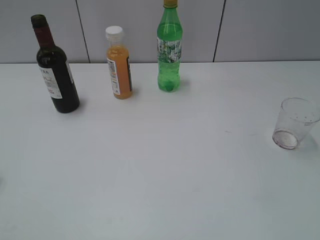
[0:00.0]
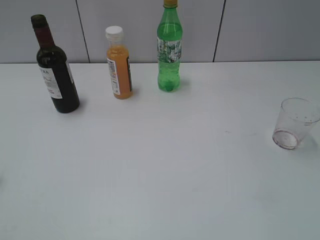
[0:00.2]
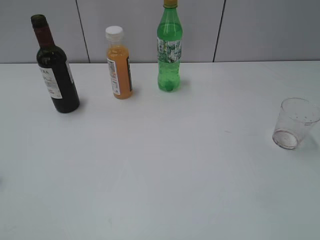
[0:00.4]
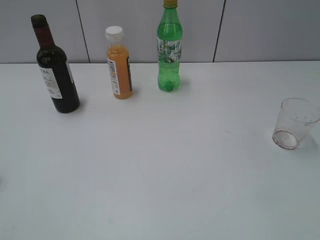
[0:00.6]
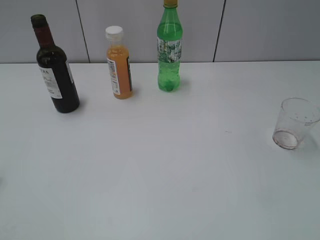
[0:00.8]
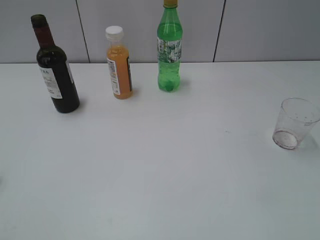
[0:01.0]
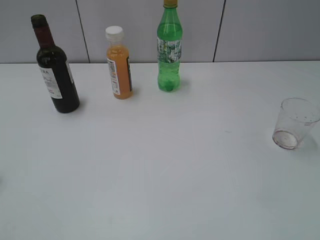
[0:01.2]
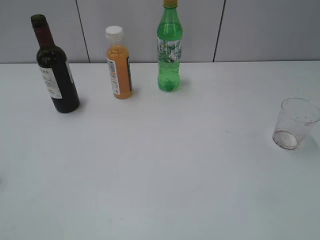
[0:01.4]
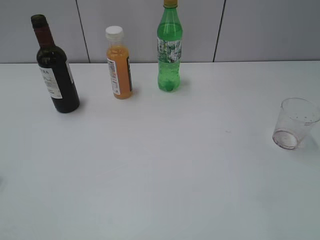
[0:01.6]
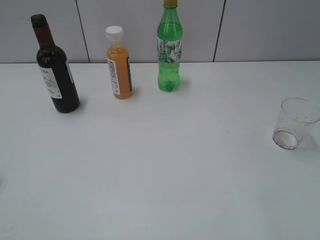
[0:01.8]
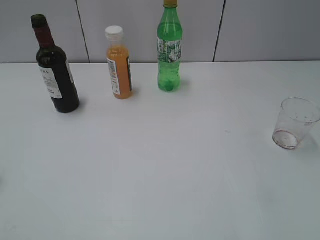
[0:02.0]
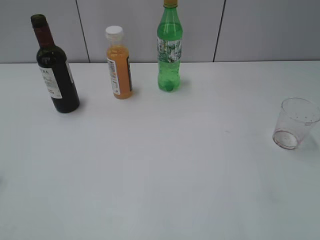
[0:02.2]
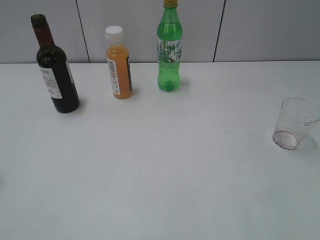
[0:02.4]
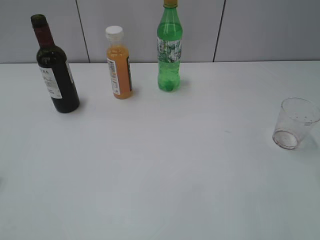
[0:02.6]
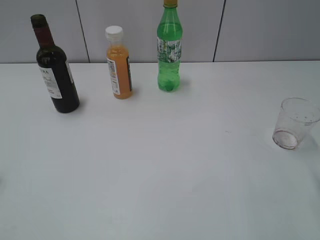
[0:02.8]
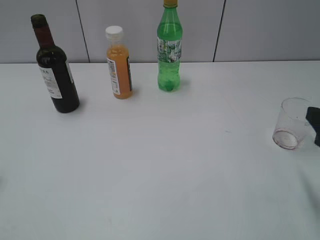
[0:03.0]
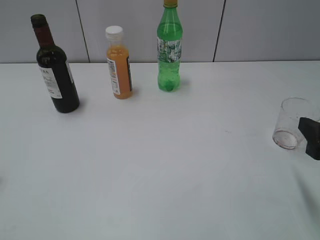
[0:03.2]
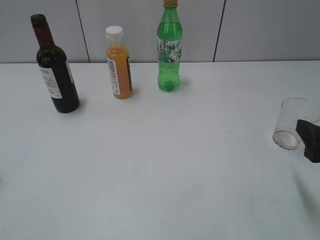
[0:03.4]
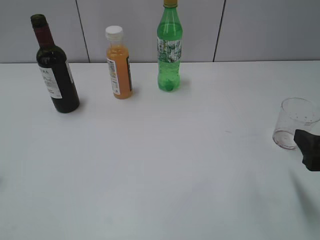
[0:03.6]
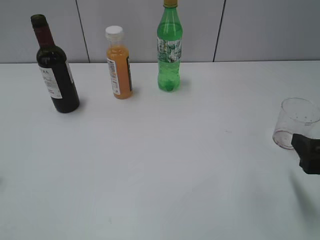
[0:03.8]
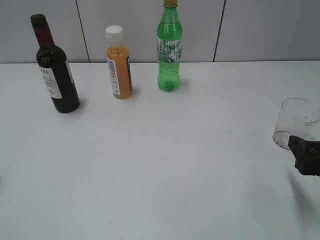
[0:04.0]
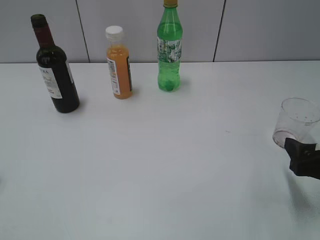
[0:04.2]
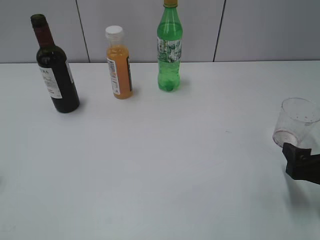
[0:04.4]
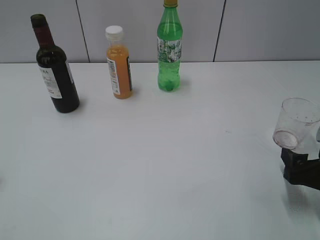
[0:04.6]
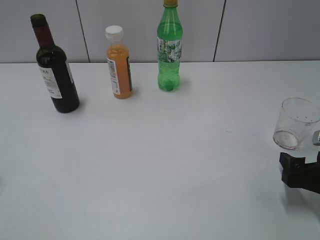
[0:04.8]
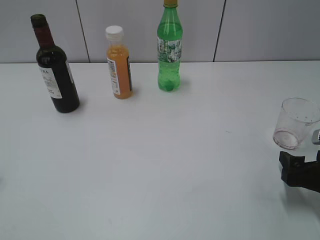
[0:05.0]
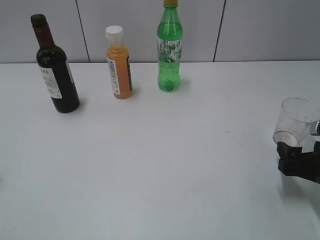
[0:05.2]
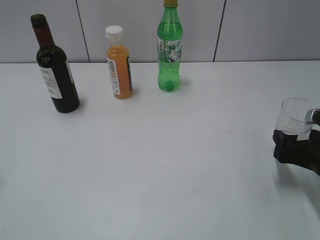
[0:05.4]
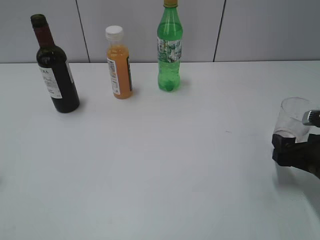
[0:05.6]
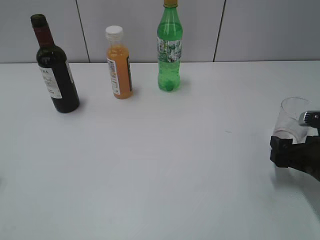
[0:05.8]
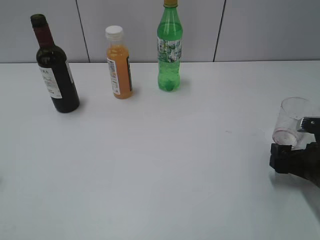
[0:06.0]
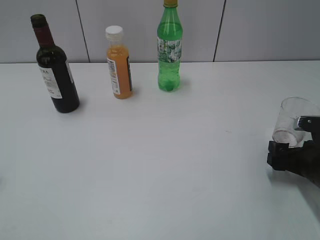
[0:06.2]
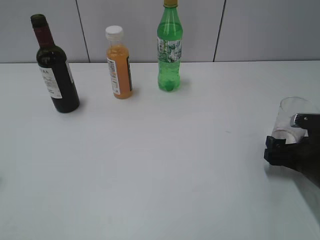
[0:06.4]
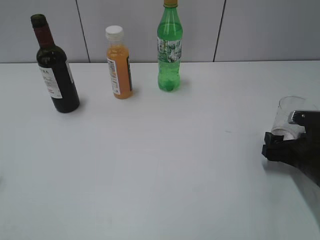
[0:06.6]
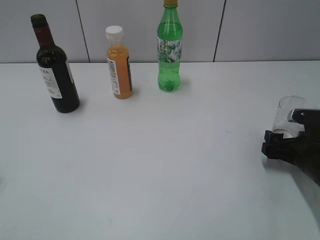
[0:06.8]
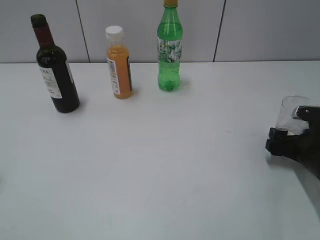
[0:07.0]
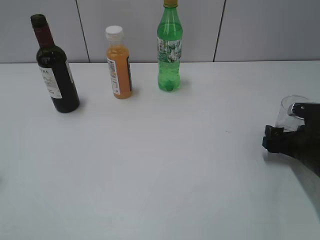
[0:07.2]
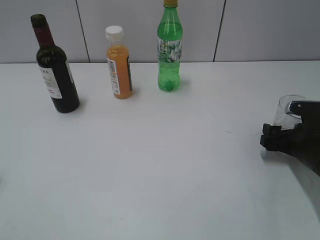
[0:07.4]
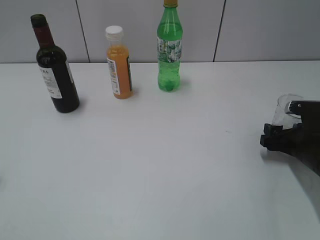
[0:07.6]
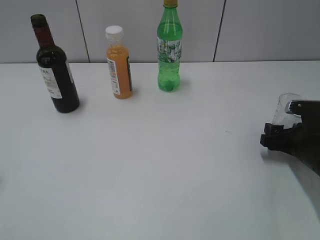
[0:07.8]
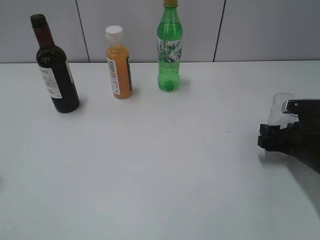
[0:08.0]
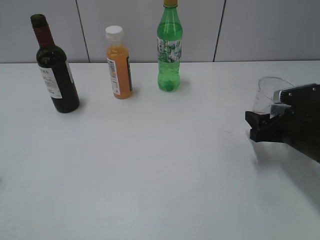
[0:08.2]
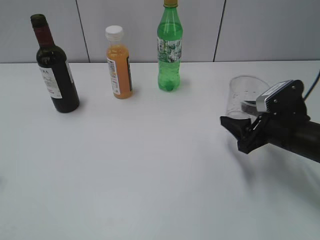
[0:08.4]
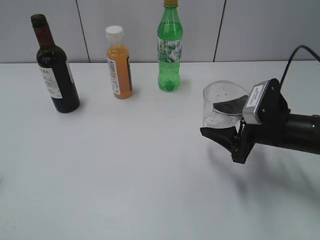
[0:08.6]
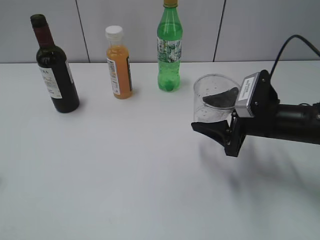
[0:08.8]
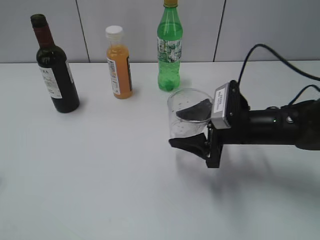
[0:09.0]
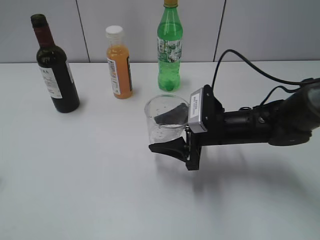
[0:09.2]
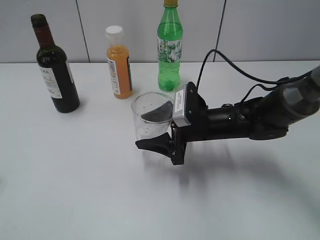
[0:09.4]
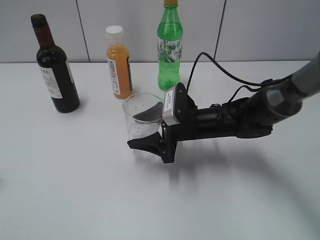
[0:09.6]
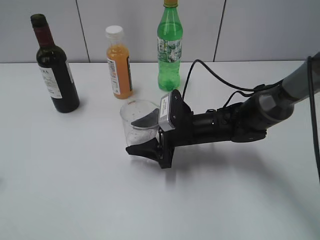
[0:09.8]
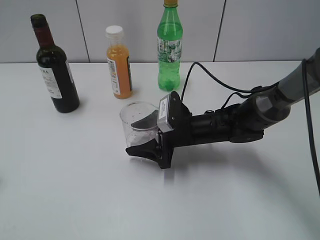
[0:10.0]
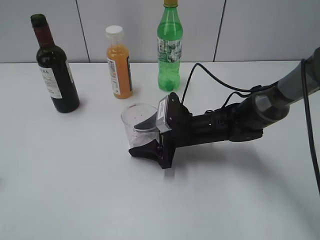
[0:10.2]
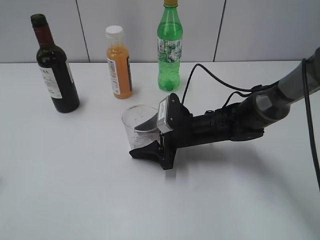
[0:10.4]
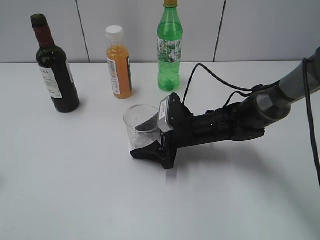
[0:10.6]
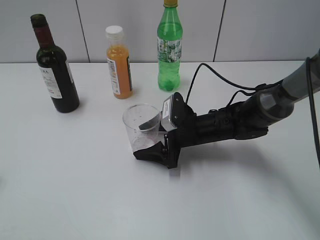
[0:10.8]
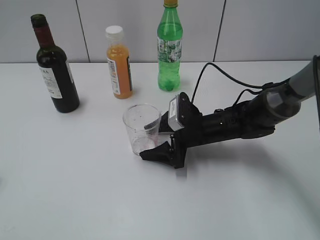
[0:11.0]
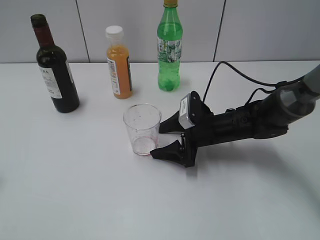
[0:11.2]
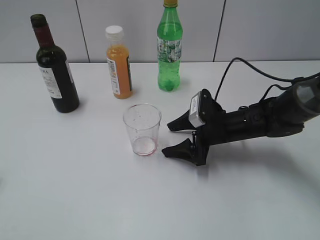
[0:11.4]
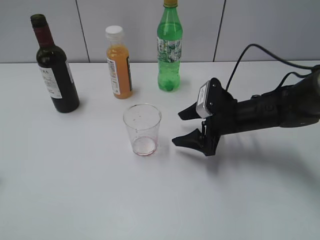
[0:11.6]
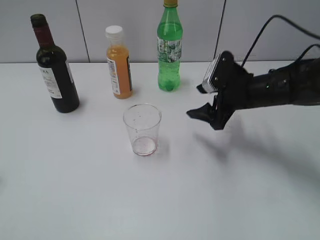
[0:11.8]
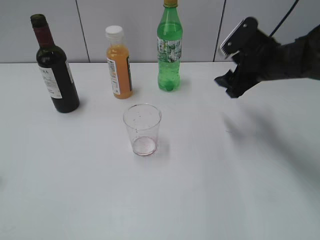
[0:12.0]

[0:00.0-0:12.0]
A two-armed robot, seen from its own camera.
Step, 0:01.2 to 0:07.6: Grasp the transparent cup with right gripper.
Step, 0:08.0 to 0:11.2: Place the transparent cup on the table with right gripper.
0:01.6 to 0:03.0: The right gripper travels forward and downward by some 15 cm.
0:03.0 to 0:04.4: The right gripper goes about 10 cm downward, and opens up.
0:04.4 to 0:06.0: The right gripper moves approximately 5 cm.
0:06.0 to 0:07.6: The right gripper is displaced forward by some 5 cm, and closes up.
0:07.6 to 0:09.0: The right gripper travels to the left by approximately 15 cm.
0:09.0 to 0:10.4: The right gripper shifts about 10 cm to the left and downward.
0:10.4 to 0:12.0: The right gripper heads upward and to the right, covering some 20 cm, and opens.

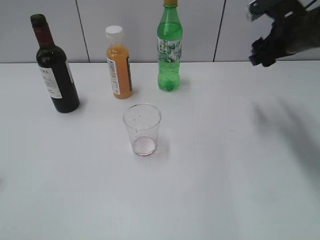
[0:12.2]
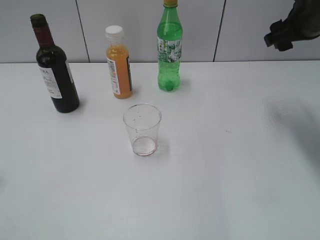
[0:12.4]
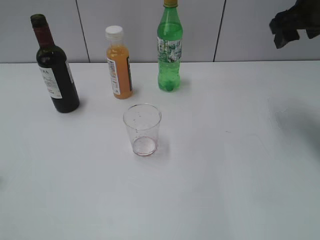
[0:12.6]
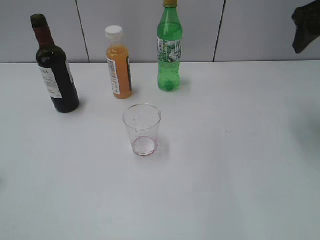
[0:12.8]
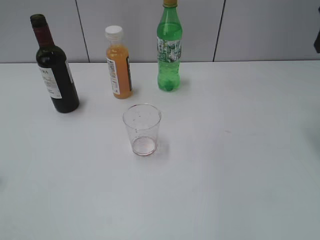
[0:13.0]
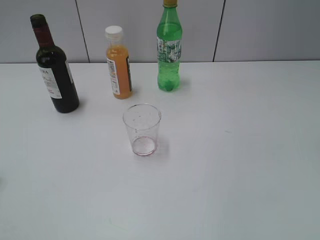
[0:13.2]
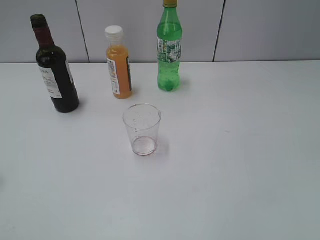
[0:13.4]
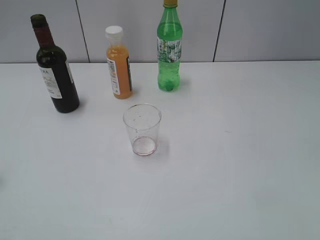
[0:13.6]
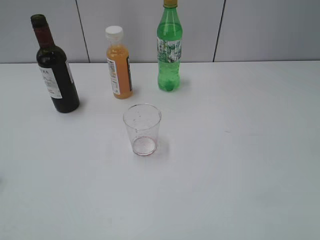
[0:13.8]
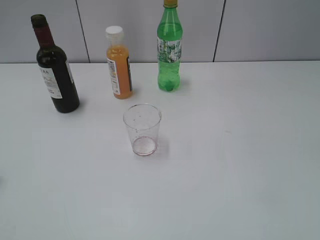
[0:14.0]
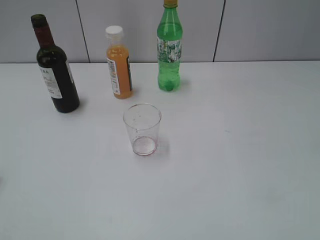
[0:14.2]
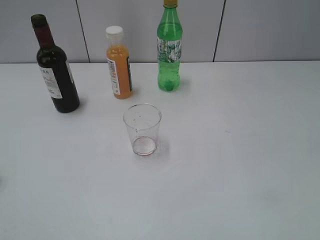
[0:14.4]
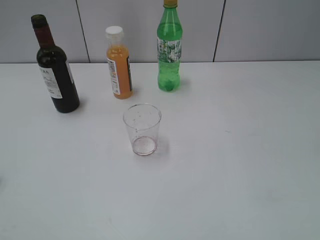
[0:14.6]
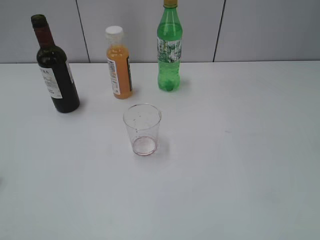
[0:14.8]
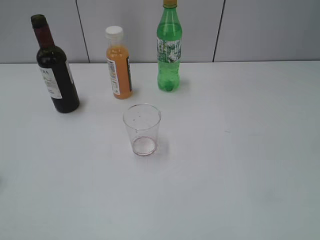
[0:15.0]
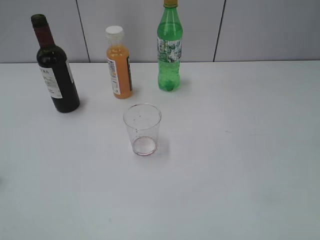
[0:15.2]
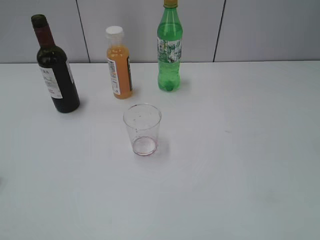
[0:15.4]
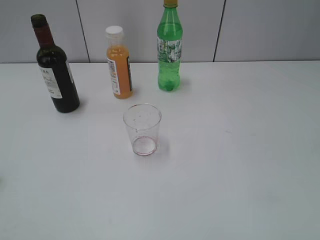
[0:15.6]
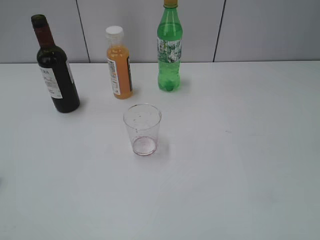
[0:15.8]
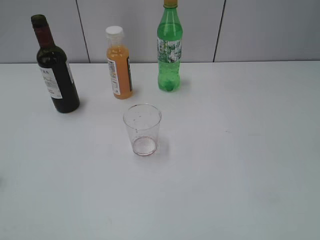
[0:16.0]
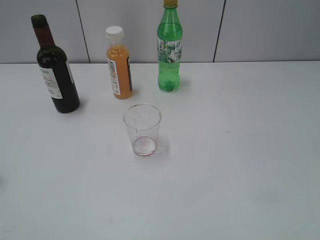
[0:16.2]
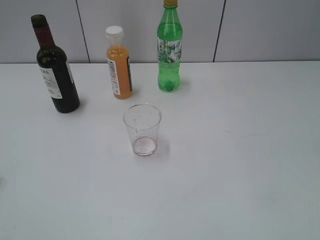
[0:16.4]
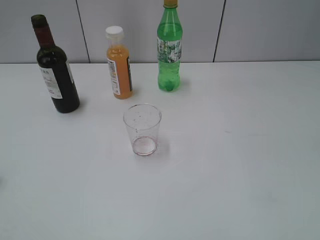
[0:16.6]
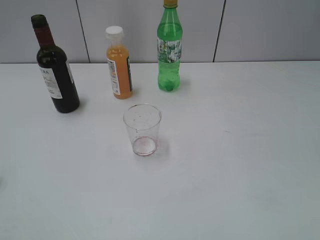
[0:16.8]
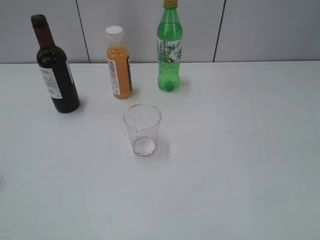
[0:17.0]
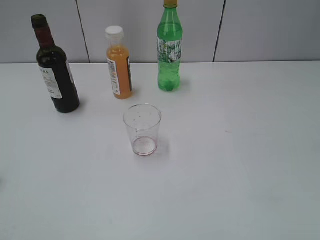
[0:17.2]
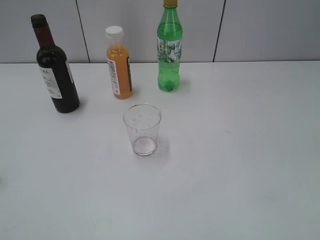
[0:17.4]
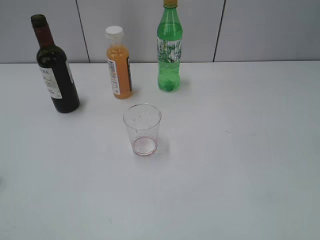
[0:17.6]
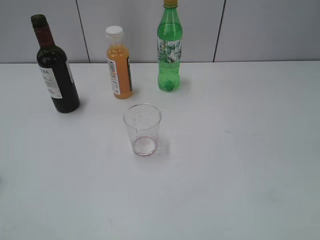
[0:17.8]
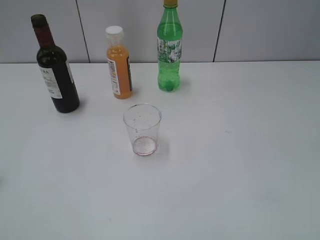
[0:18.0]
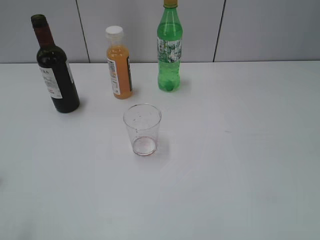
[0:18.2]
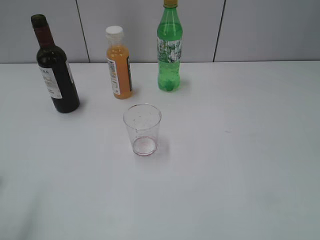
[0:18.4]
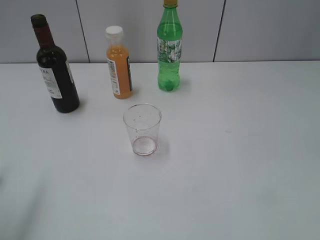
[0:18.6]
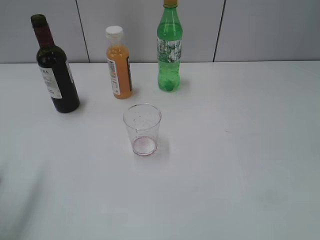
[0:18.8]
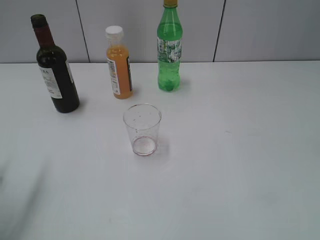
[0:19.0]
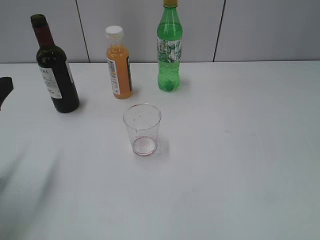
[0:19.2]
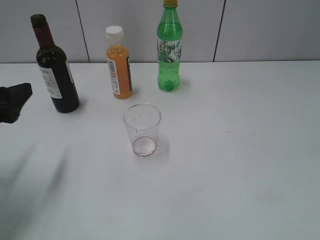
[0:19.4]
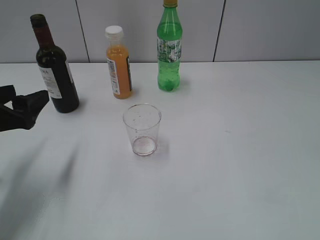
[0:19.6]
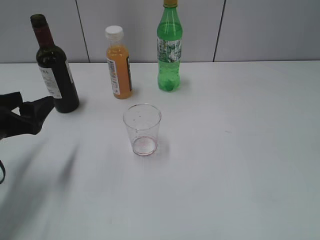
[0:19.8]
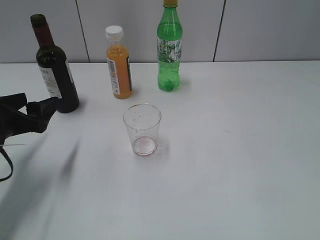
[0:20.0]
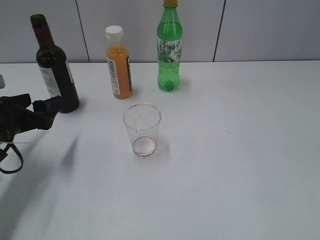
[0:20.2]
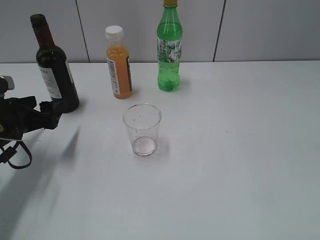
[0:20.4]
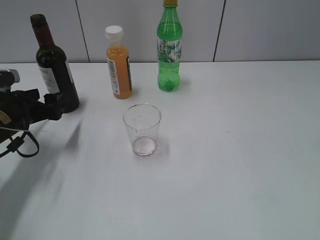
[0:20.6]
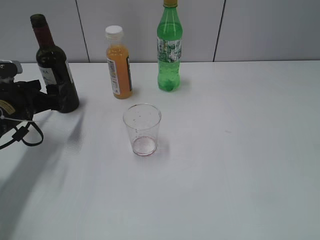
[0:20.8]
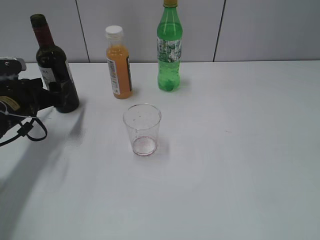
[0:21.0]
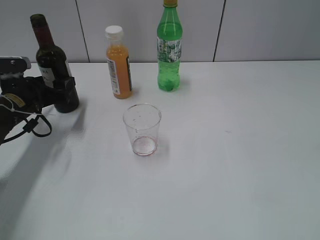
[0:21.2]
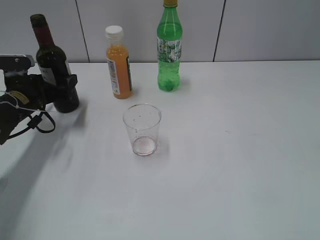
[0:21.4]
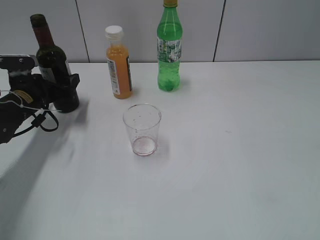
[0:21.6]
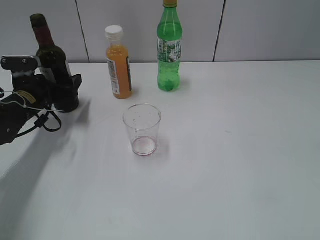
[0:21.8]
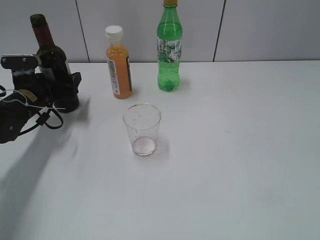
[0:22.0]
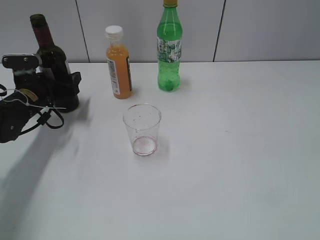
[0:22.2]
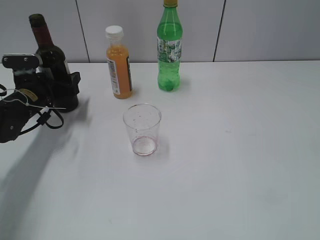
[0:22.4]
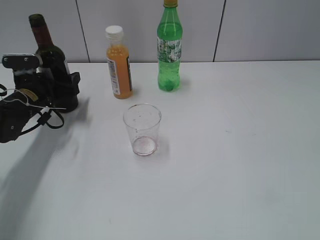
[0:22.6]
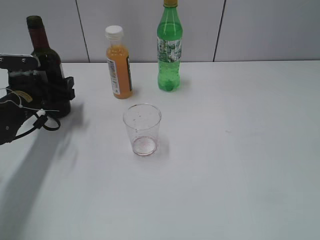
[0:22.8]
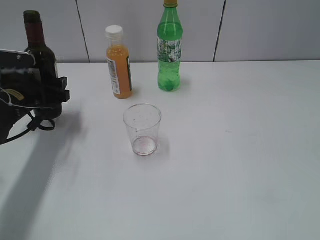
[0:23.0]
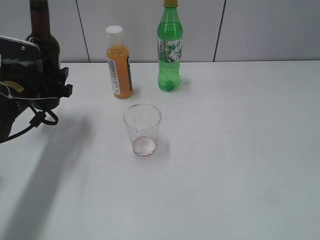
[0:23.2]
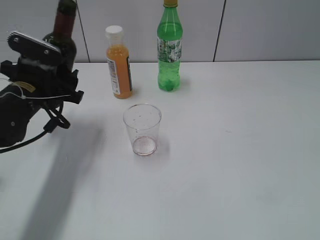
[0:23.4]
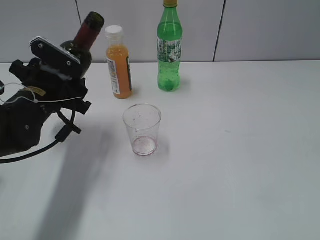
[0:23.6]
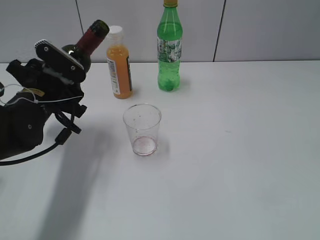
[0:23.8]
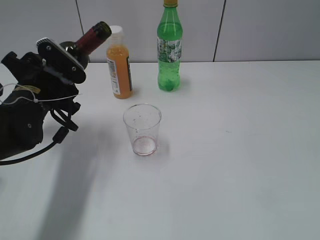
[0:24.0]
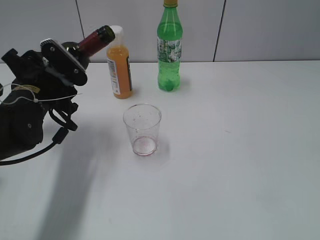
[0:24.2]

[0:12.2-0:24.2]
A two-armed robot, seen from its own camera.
Step, 0:12.2 to 0:22.6: Grasp the bottle with red wine with left gripper.
0:12.2 to 0:13.8: The right gripper moves backward, some 25 cm.
0:18.2 to 0:19.8: The left gripper travels forward and downward by about 25 cm.
0:19.8 to 0:21.2: The left gripper shifts about 10 cm forward.
0:21.2 to 0:22.6: The left gripper closes up.
0:22.6 to 0:24.2: The left gripper heads backward, upward and to the right, covering about 15 cm.
